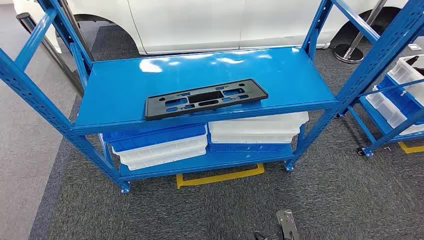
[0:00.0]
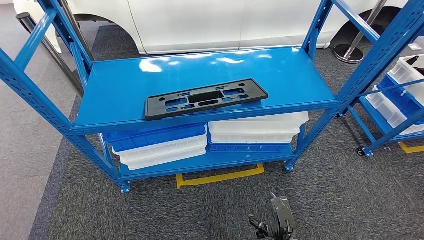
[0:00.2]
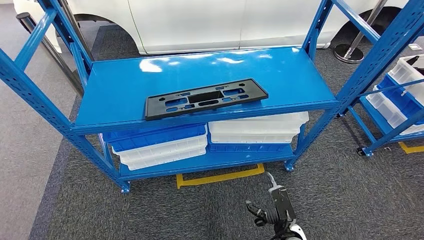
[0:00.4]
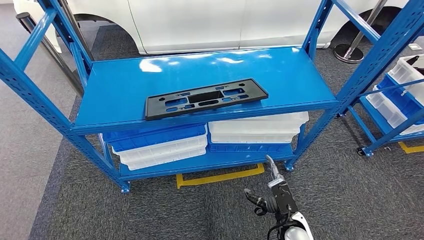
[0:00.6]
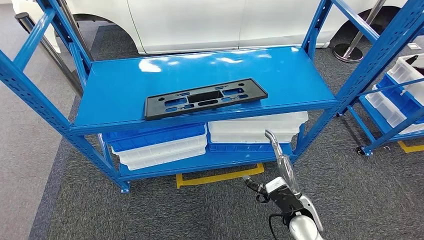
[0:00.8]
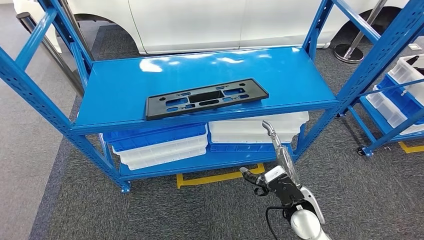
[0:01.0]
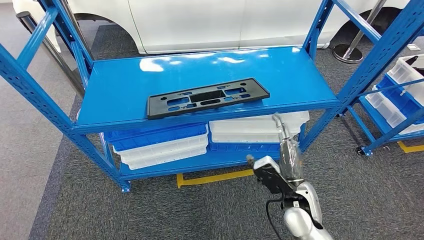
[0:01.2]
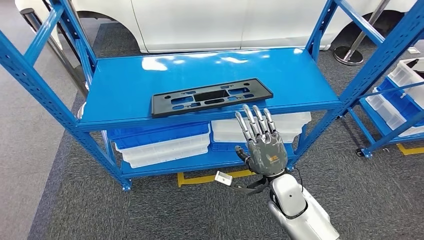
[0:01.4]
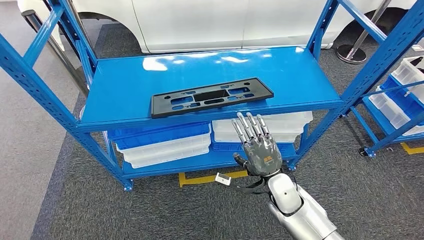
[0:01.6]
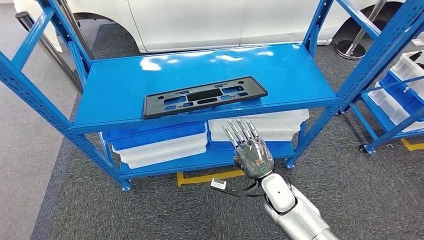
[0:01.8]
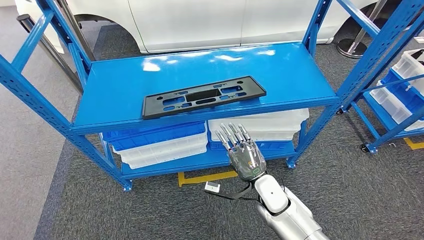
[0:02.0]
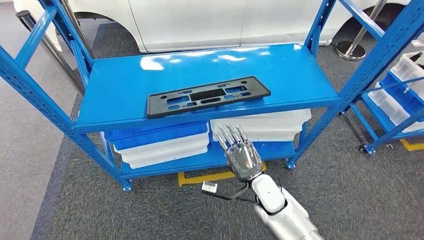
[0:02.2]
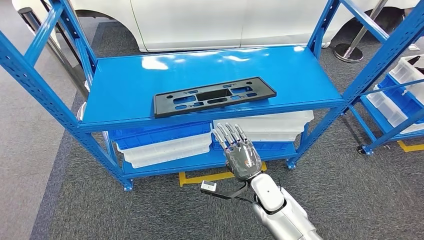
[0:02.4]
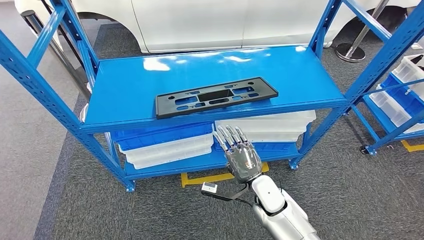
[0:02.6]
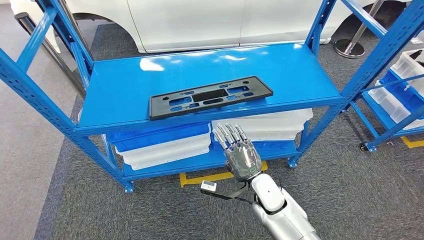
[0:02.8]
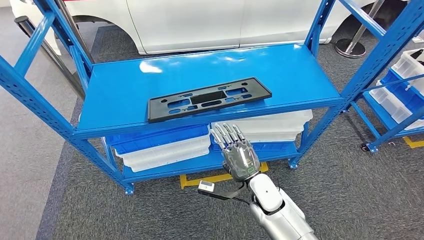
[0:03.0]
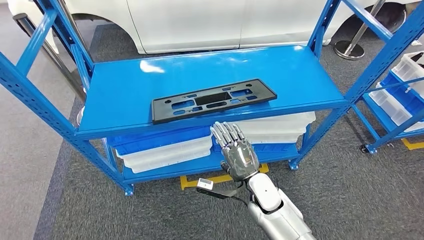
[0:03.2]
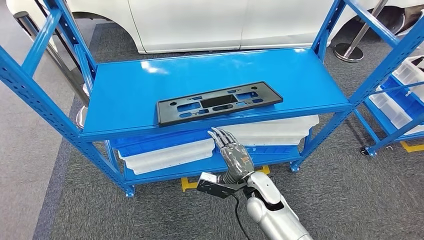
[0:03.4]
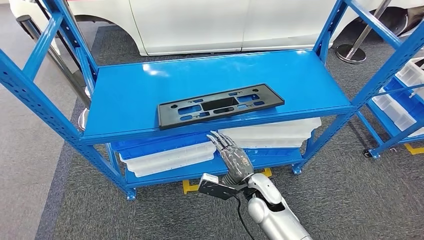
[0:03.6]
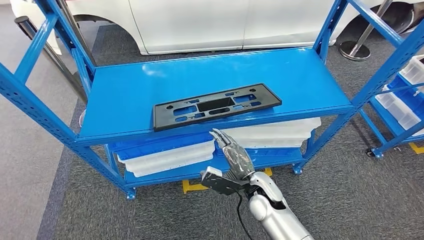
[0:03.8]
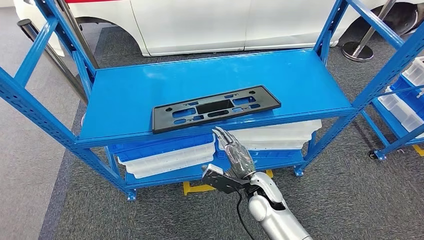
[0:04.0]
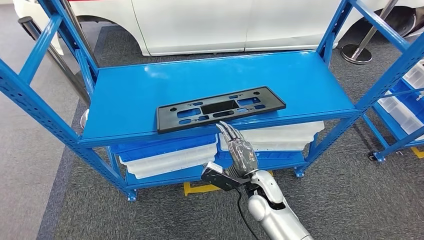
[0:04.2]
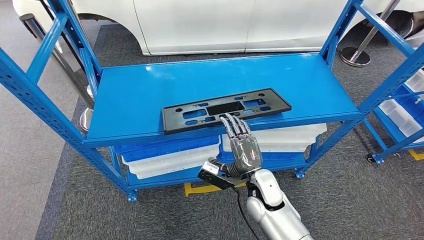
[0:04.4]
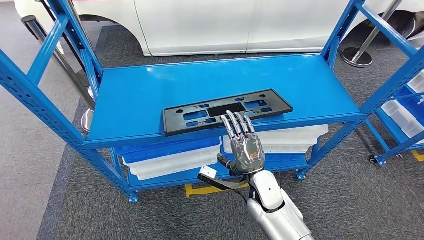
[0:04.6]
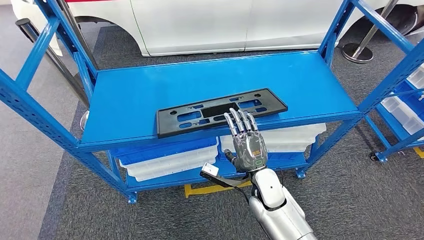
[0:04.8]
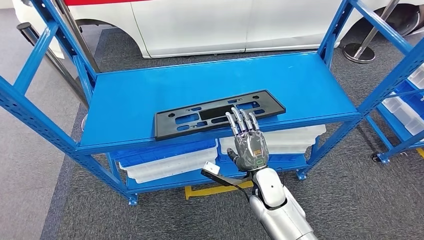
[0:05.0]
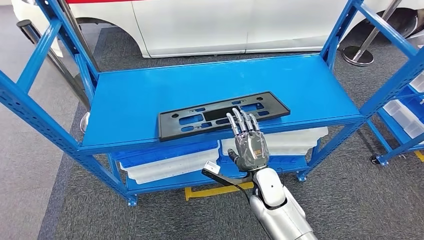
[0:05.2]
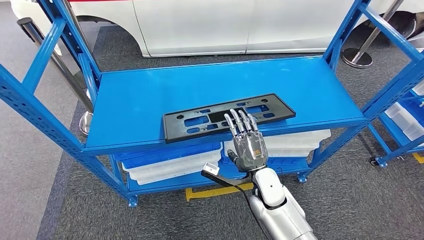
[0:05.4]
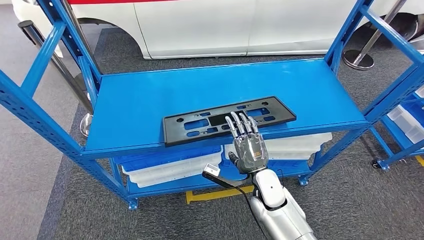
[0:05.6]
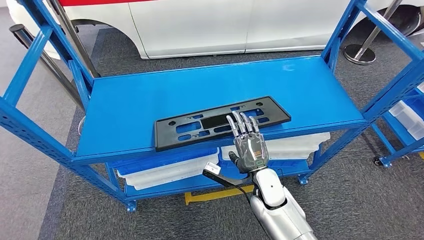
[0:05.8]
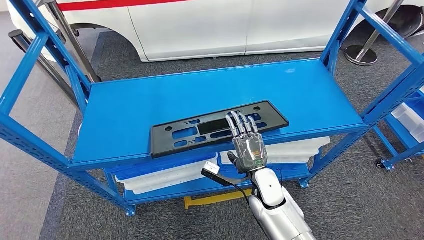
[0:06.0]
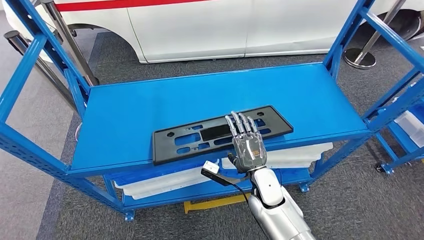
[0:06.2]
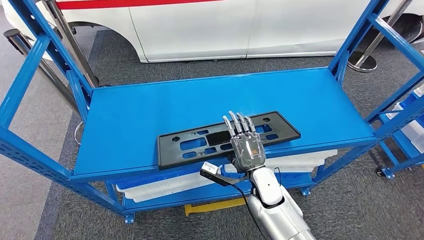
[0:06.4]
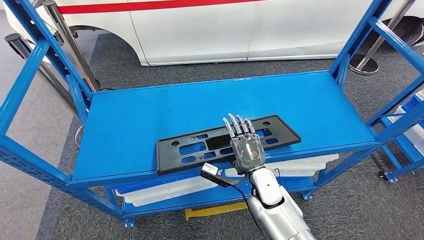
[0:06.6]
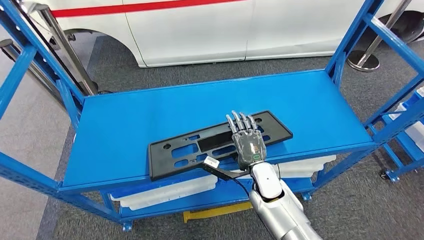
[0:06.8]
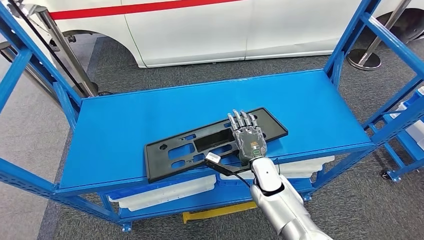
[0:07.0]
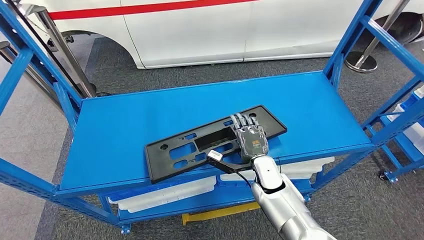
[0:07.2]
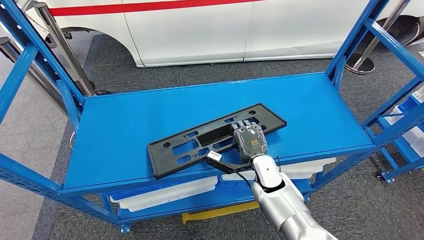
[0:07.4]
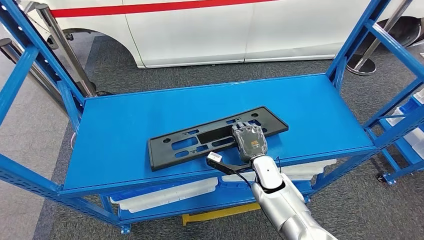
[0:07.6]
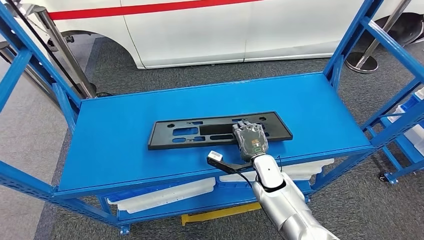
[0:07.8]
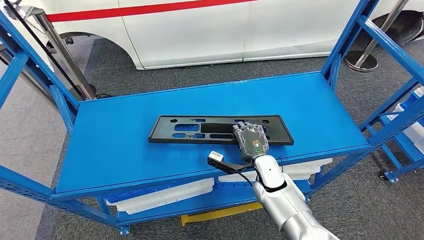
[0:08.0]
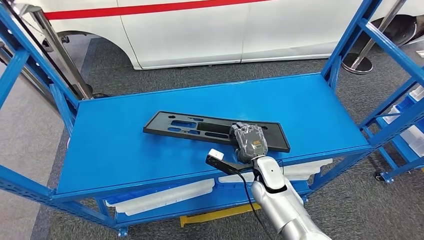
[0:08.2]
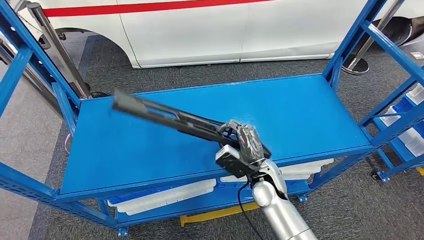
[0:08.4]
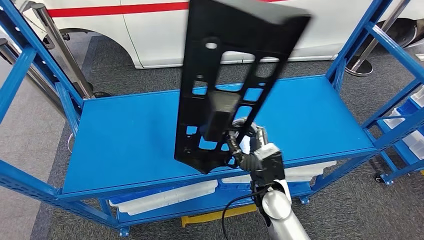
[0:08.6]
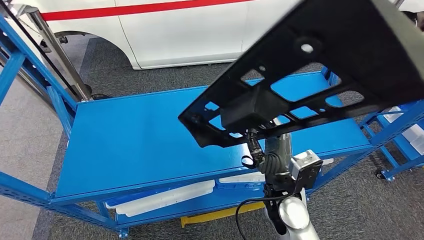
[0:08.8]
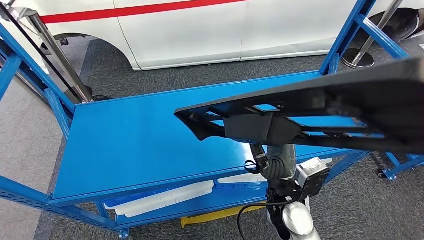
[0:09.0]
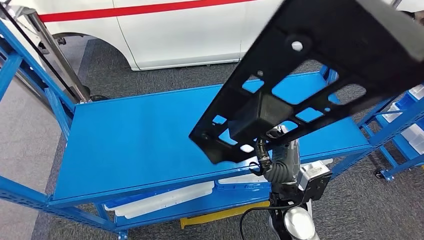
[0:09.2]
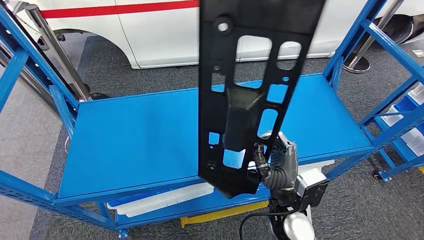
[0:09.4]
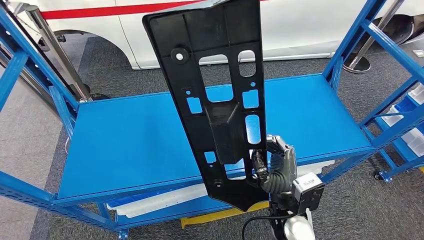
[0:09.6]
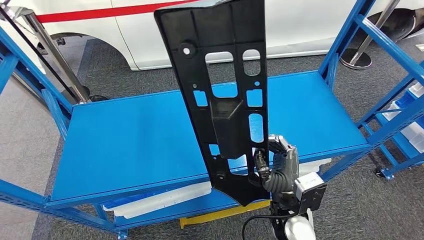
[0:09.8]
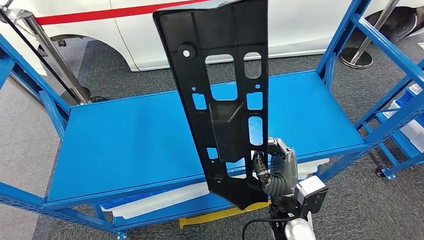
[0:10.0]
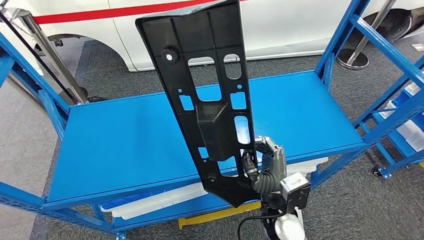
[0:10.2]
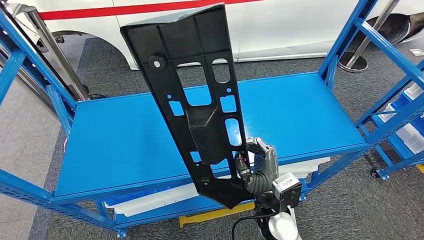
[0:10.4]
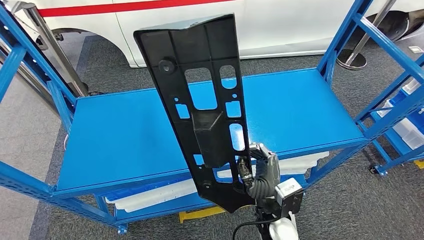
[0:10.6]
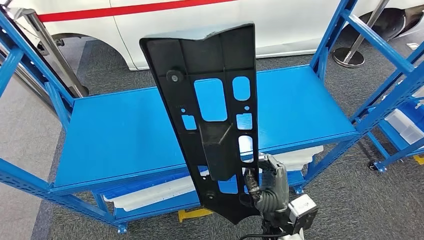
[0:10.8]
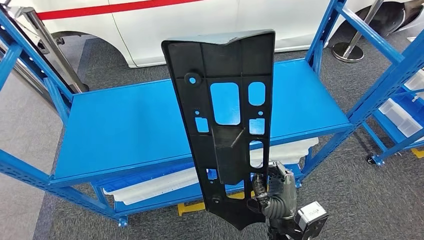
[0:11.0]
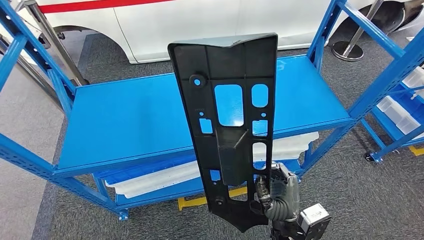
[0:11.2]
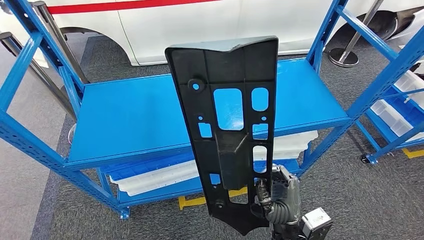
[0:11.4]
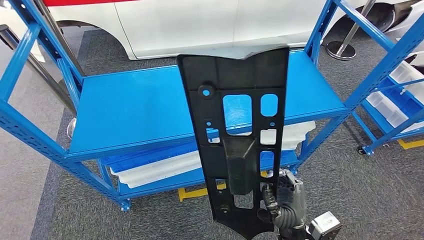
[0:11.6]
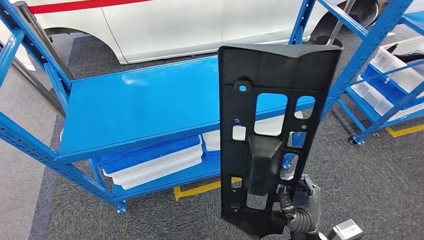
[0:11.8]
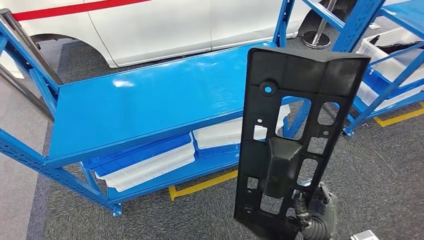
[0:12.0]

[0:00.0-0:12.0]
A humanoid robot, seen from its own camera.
Step, 0:00.0 to 0:09.6: Pick up the large material from the shelf.

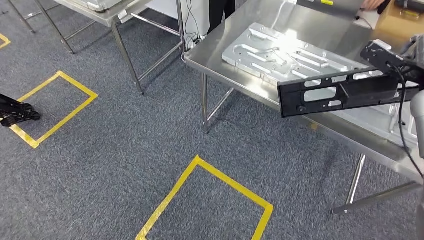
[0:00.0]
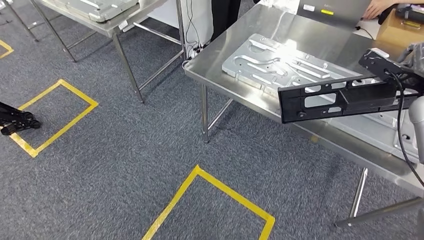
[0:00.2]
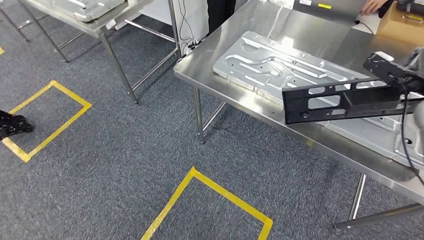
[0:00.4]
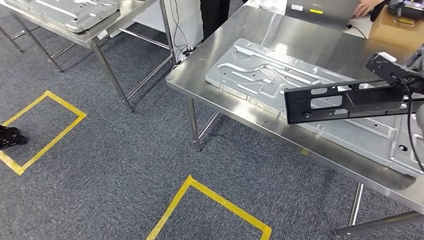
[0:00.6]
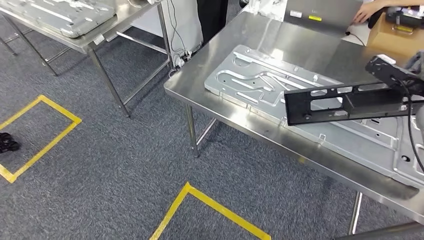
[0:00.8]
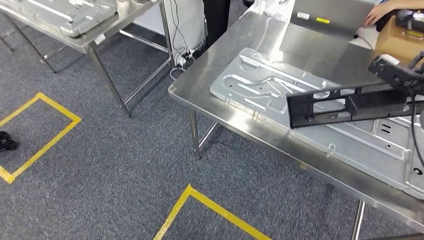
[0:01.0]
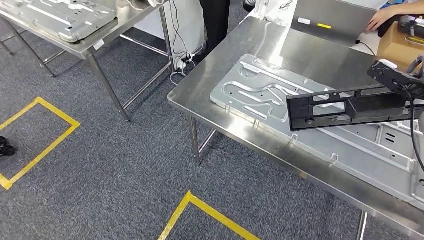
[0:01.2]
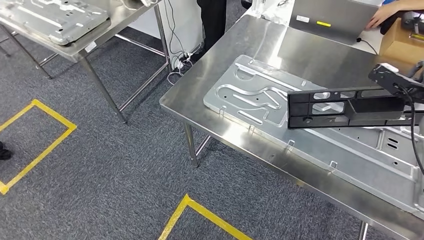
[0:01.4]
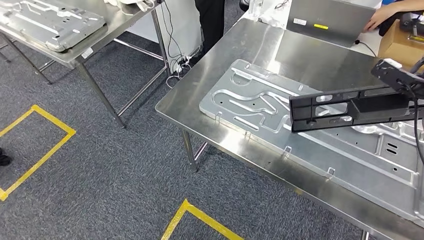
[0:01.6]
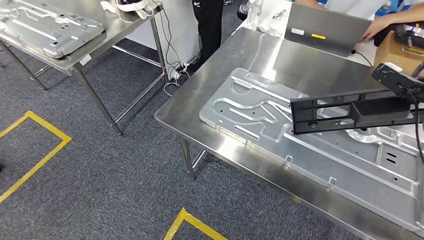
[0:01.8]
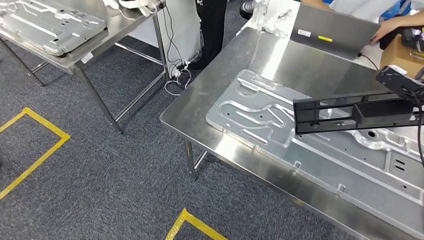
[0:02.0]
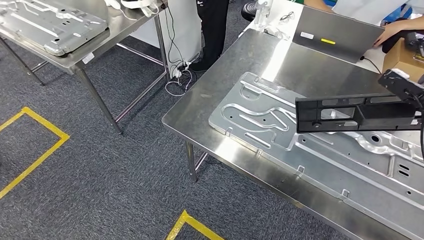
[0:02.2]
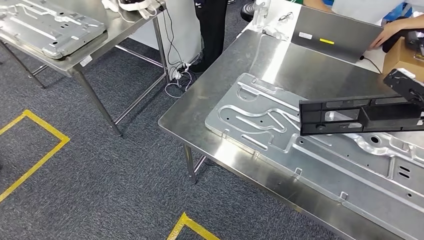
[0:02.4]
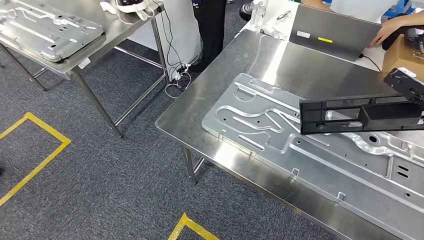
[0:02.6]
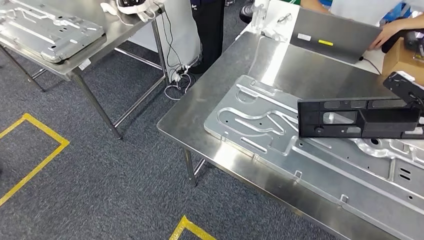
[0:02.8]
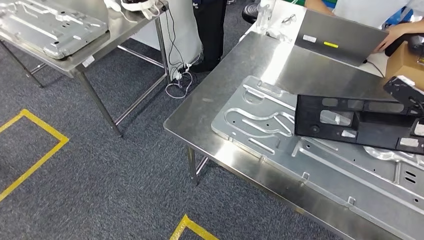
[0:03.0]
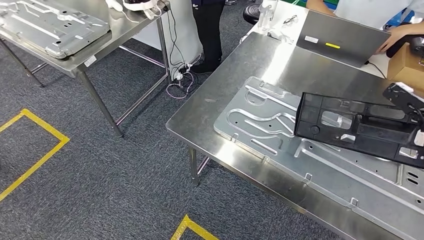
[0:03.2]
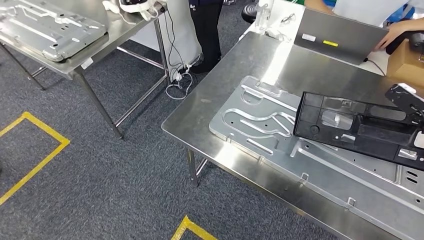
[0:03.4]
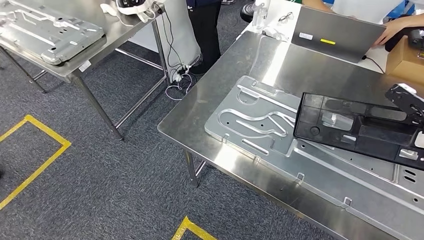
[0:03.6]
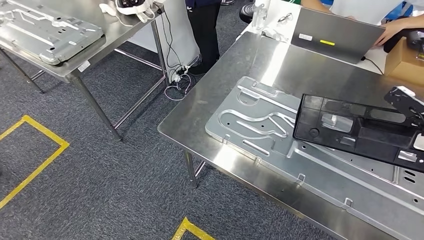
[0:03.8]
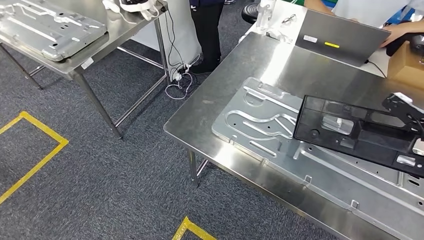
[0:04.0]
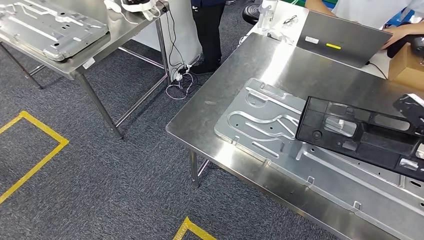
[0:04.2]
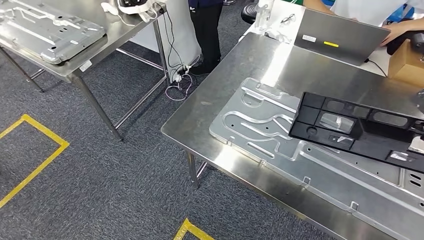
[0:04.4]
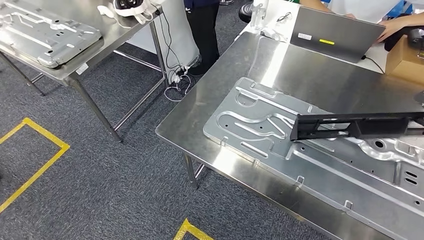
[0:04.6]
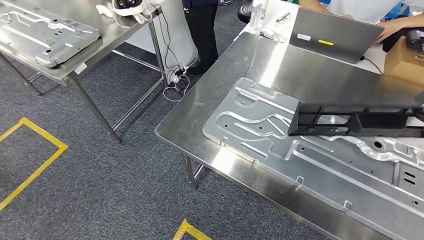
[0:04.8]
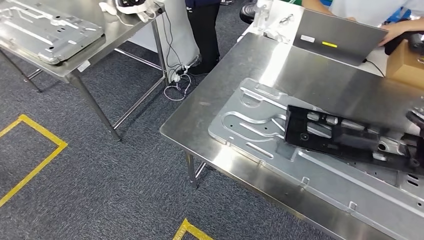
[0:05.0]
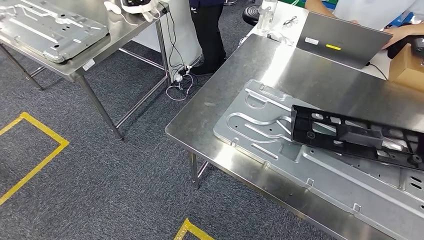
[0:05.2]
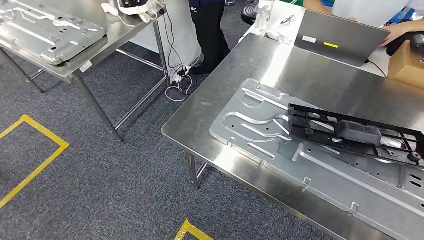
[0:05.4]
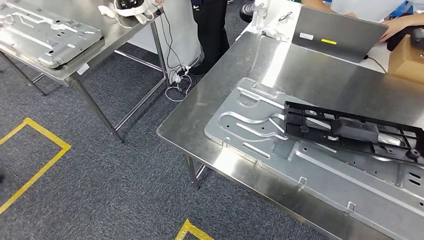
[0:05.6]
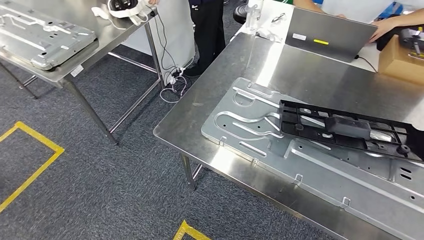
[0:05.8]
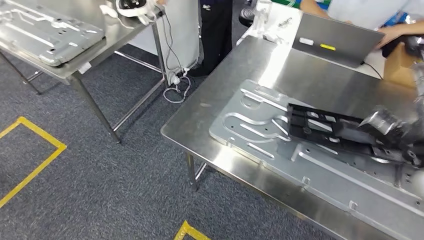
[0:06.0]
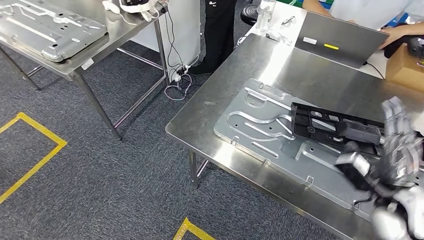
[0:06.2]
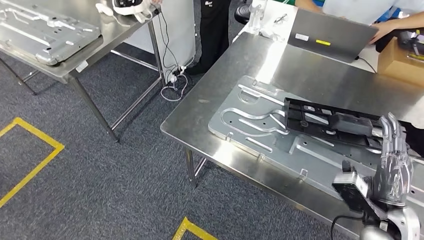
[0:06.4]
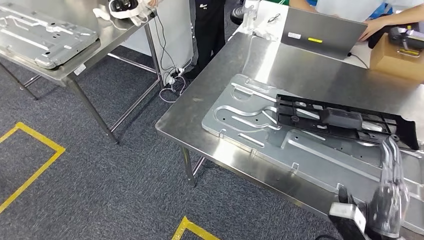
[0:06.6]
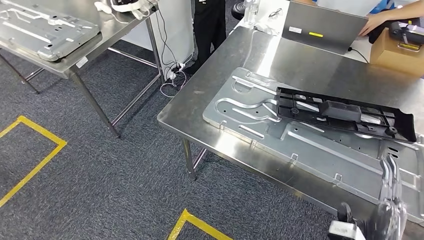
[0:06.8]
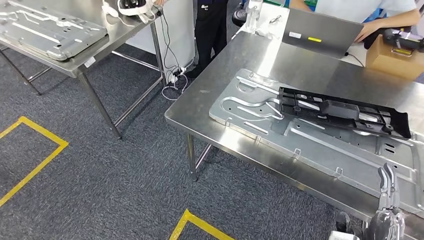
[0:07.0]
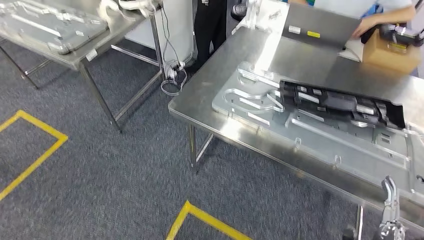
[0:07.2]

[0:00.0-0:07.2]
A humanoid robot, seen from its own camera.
0:02.8 to 0:04.4: The right hand shifts by approximately 5 cm.
